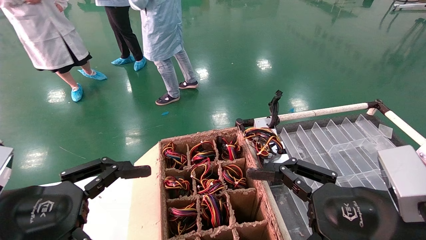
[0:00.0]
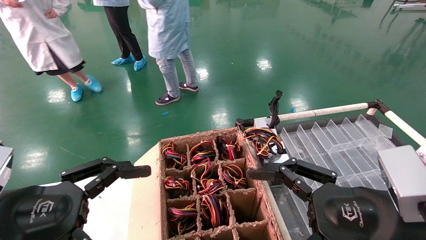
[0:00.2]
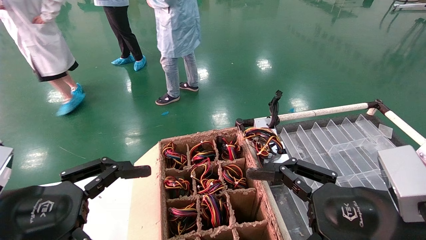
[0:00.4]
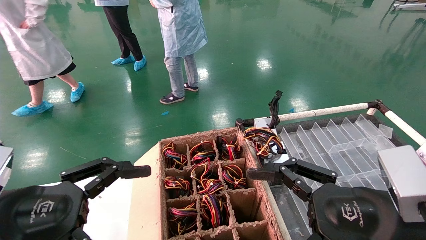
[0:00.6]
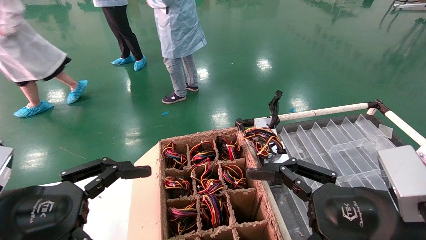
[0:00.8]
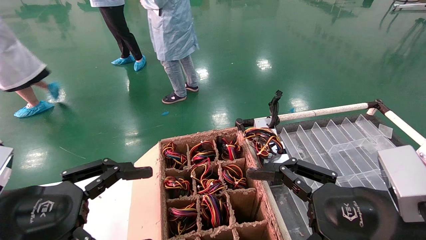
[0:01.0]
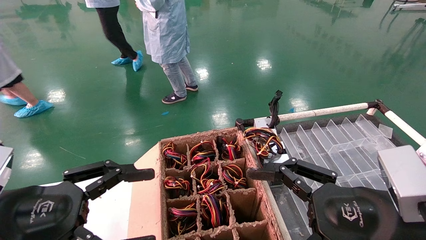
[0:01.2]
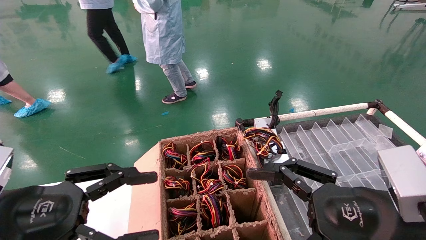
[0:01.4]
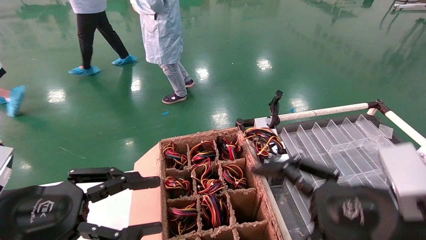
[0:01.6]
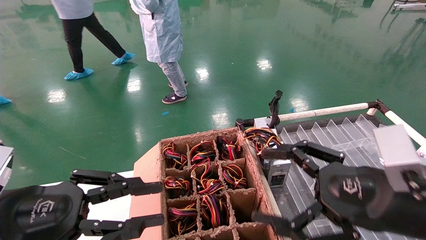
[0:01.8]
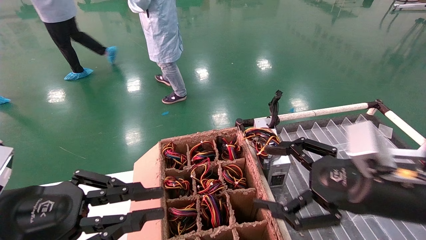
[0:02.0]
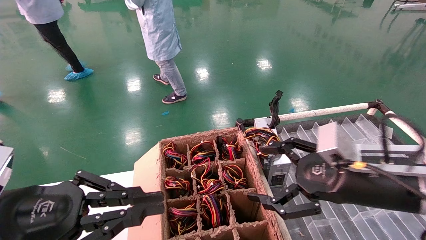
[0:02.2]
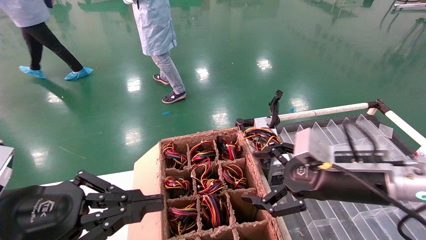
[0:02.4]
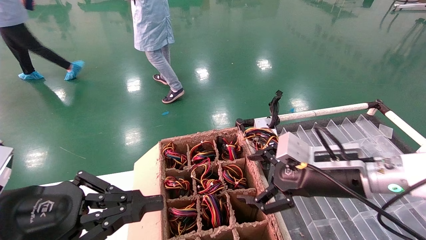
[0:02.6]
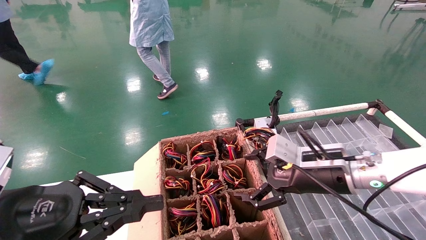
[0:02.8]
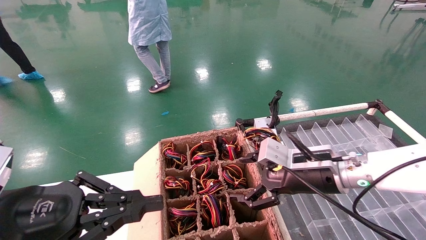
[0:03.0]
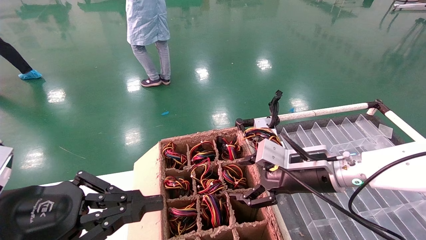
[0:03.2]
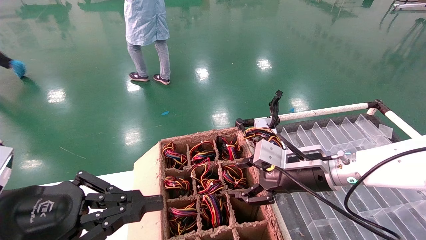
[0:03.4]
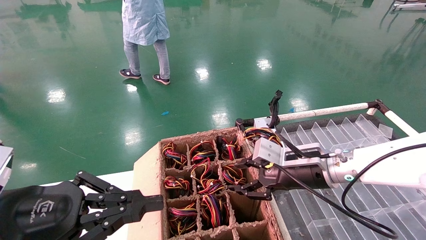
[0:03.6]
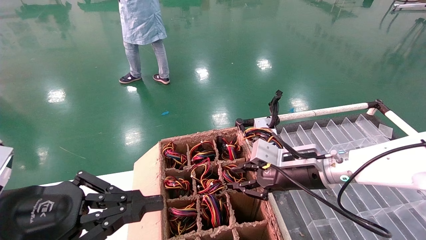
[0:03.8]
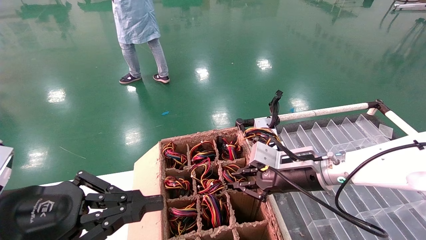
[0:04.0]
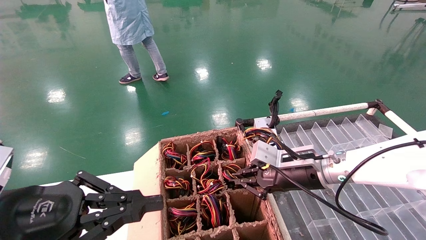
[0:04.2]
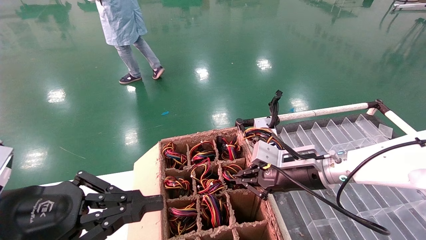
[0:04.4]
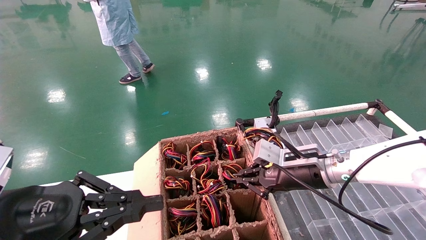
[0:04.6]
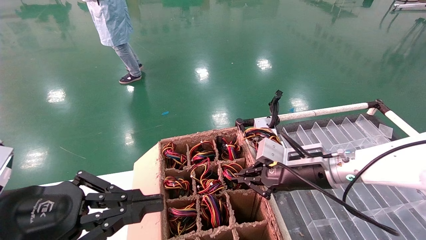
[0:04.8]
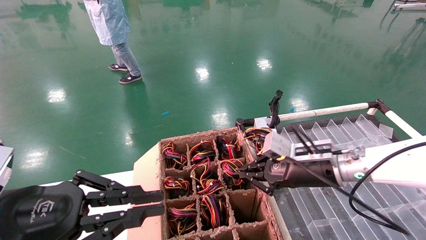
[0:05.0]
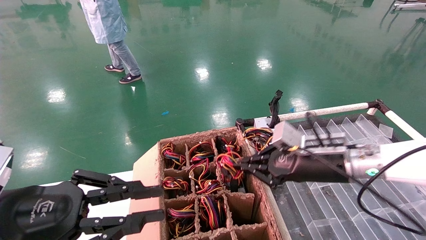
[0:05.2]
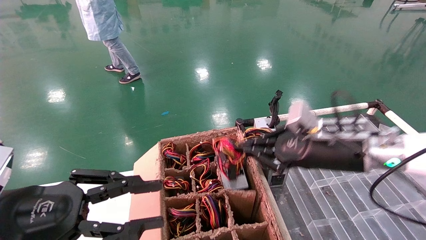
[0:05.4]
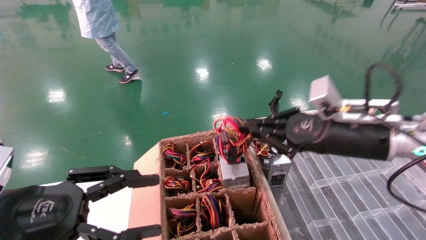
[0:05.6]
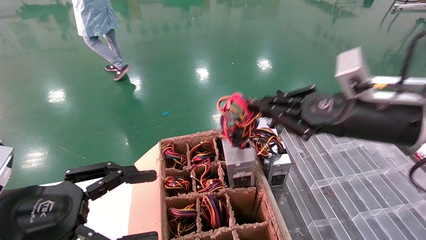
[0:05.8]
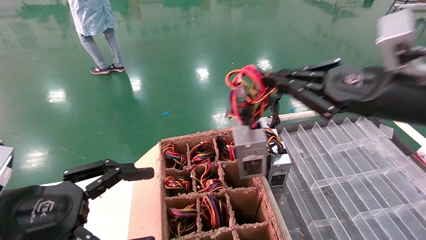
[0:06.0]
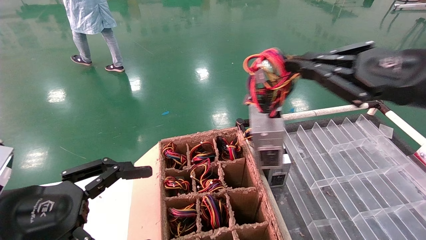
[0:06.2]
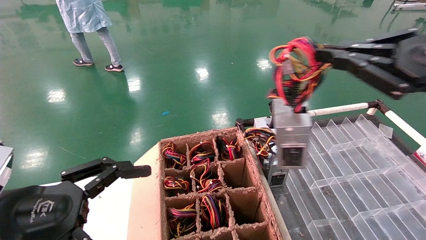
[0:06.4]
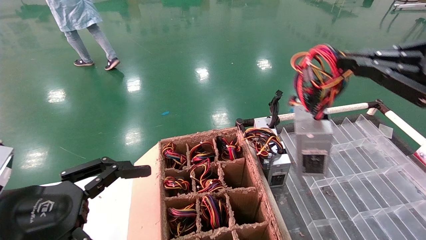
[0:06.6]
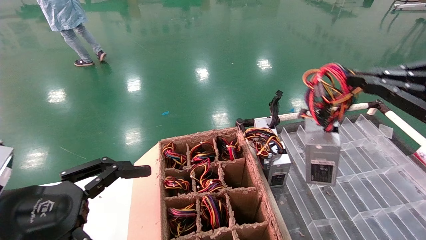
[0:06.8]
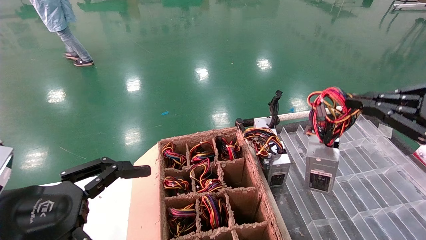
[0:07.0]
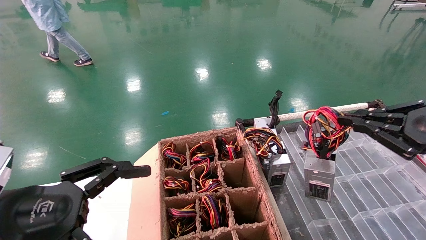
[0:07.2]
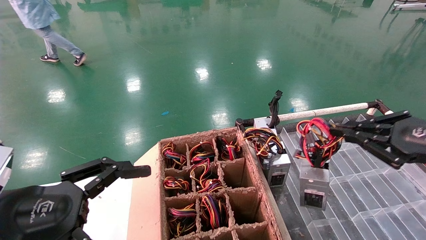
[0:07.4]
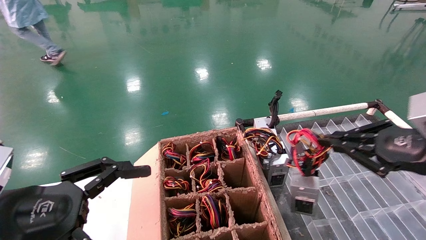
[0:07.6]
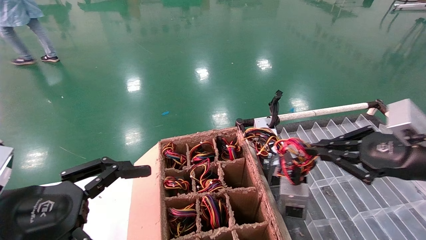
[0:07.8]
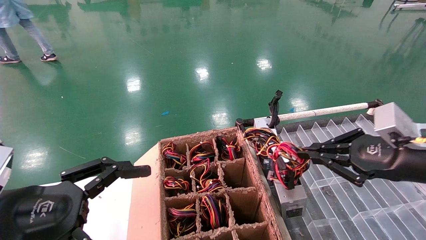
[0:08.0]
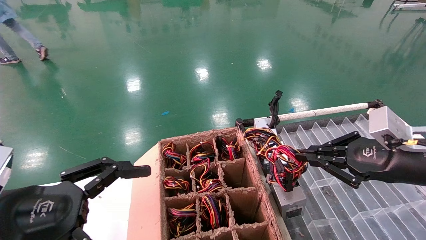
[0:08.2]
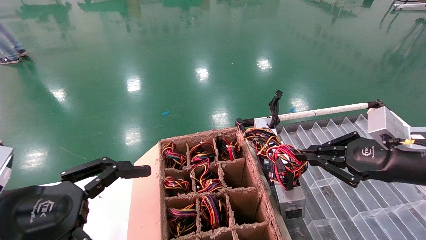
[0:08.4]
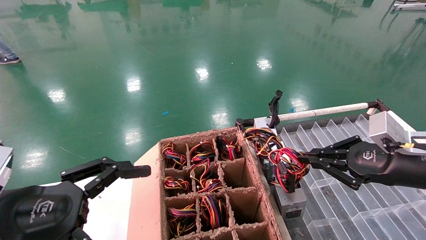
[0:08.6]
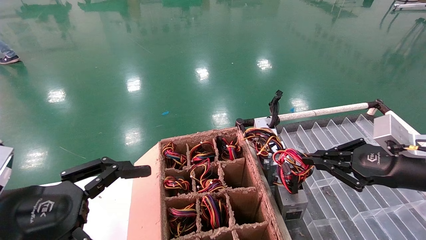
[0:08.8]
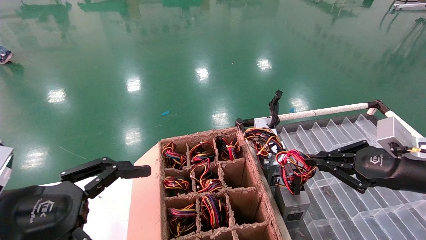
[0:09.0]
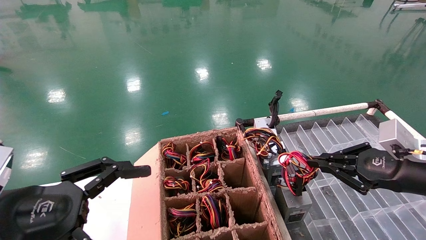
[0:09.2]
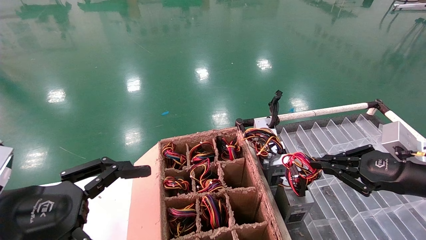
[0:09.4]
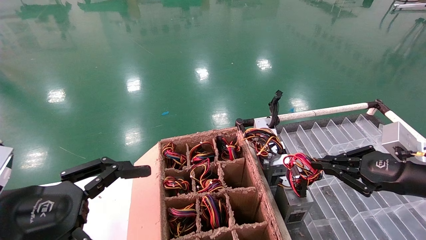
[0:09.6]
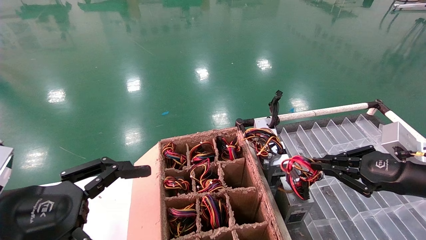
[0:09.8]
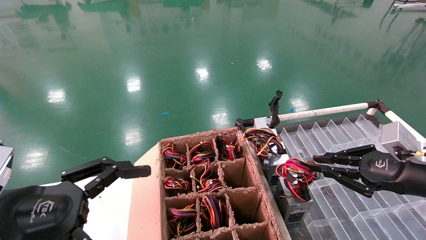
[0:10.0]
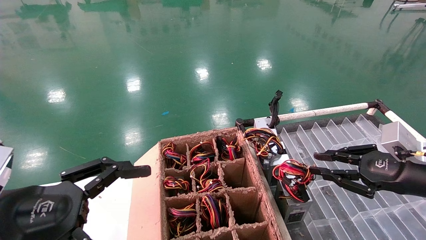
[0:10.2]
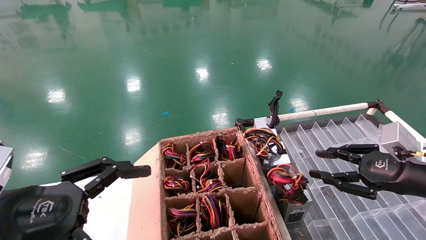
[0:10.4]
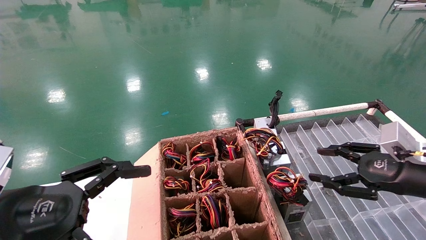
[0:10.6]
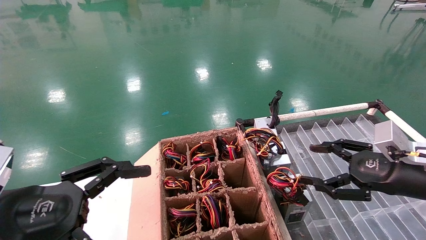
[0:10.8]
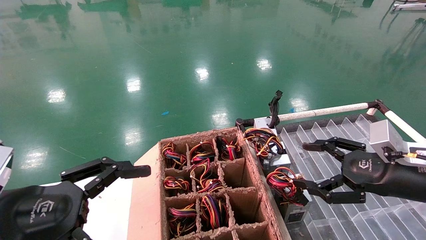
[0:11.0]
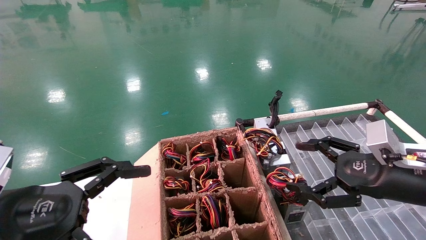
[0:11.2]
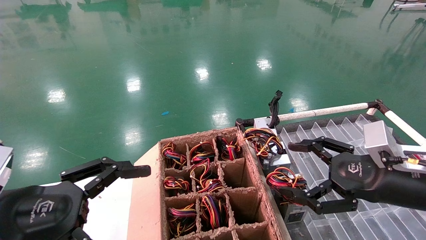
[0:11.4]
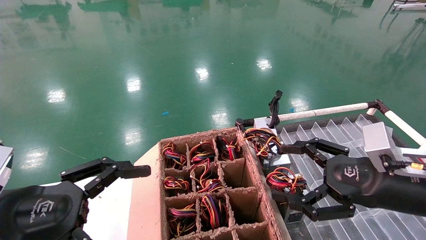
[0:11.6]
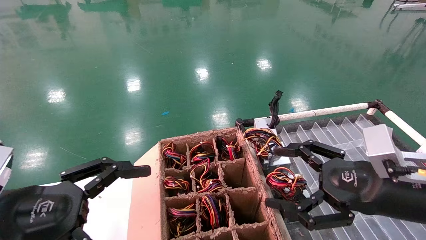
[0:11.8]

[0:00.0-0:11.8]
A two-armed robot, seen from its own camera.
Step, 0:01.2 to 0:04.4: Grab and lift the power supply from the large box.
Step, 0:04.6 to 0:10.0: Place the power supply on the operating table.
0:00.0 to 0:01.4: Neither gripper changes place.
0:01.4 to 0:03.0: The right gripper shifts about 15 cm forward; the left gripper closes up.
0:03.0 to 0:04.4: The right gripper closes up.
0:04.4 to 0:06.0: The left gripper opens up; the right gripper goes about 20 cm upward, backward and to the right.
0:06.0 to 0:07.4: The right gripper heads to the right and downward, covering approximately 10 cm.
0:07.4 to 0:08.8: The right gripper ends up about 5 cm from where it was.
0:08.8 to 0:10.4: There are only small adjustments of the grippers.
0:10.4 to 0:11.8: The right gripper moves to the left, about 10 cm, and opens up.
